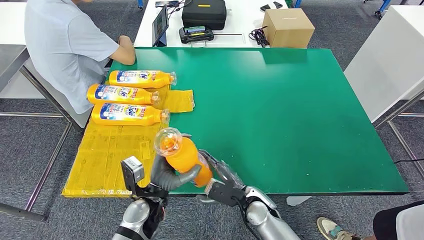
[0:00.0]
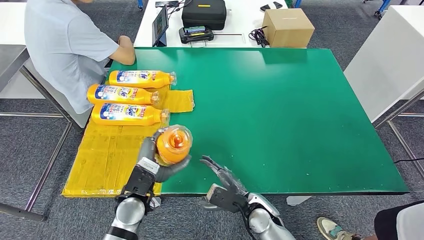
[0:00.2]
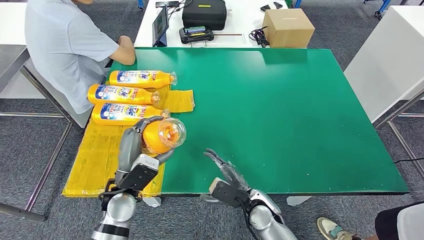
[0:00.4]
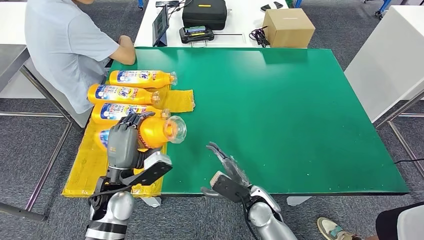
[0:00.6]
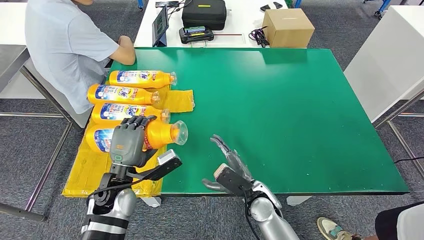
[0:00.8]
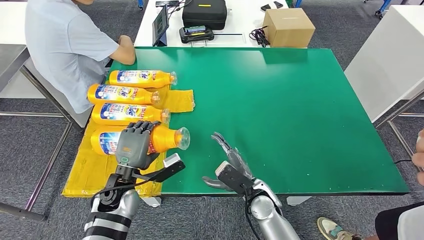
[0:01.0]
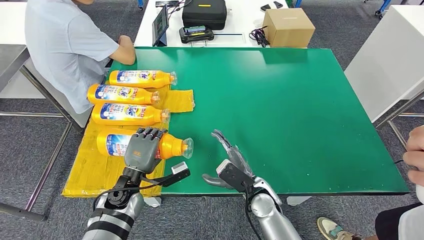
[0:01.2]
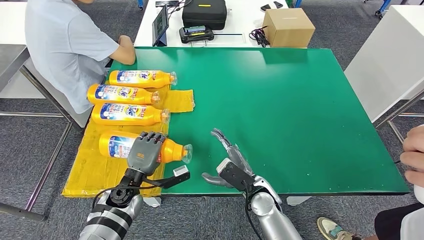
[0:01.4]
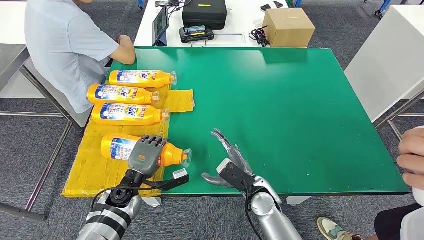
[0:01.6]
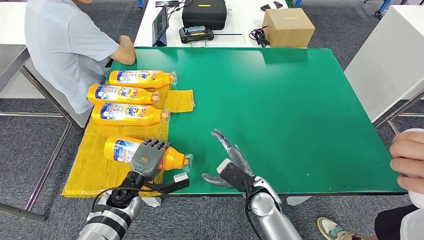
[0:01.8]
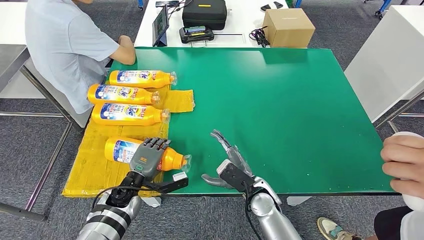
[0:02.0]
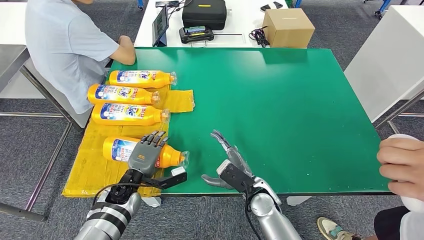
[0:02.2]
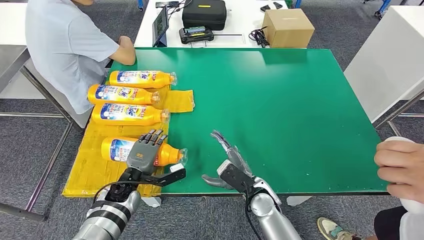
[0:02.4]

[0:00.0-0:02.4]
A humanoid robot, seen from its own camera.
Step, 0:00.0 to 0:02.2: Flip the fast-moving consumer goods bottle to the front side.
0:00.0 to 0:01.2: The left hand shifts some 5 cm to the left.
0:01.2 to 0:02.4: The hands make only small movements.

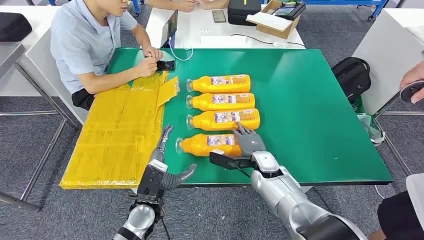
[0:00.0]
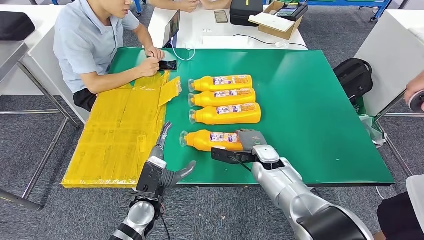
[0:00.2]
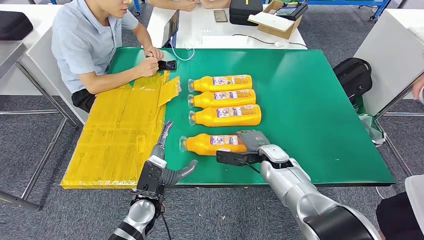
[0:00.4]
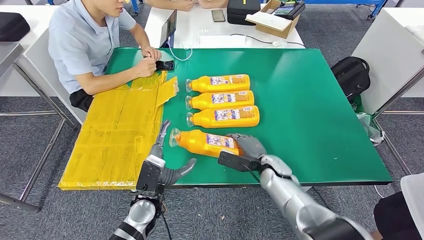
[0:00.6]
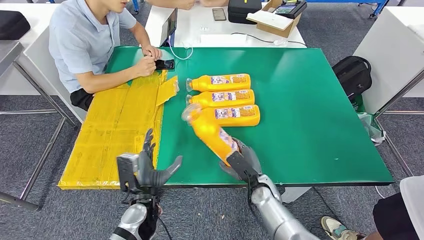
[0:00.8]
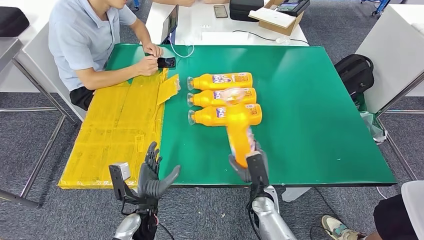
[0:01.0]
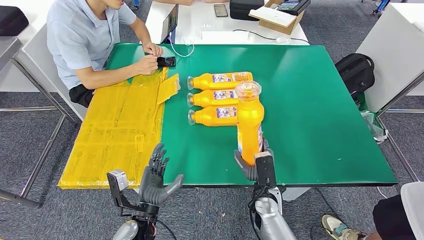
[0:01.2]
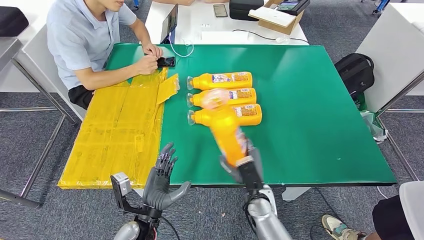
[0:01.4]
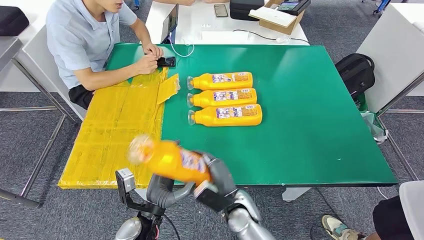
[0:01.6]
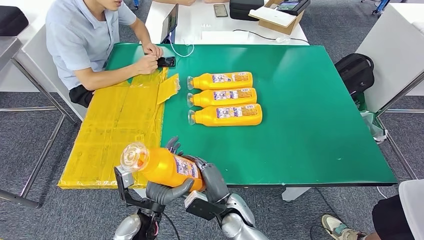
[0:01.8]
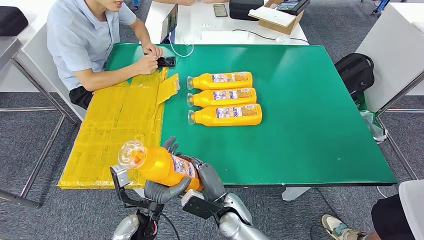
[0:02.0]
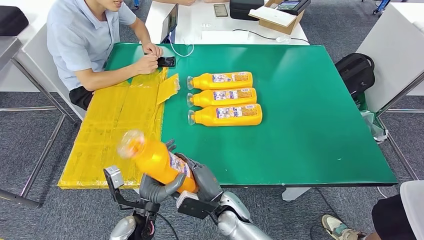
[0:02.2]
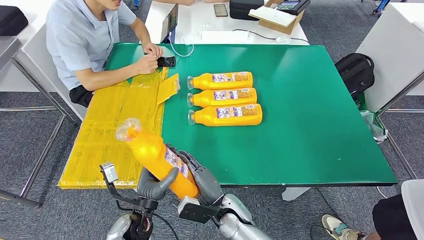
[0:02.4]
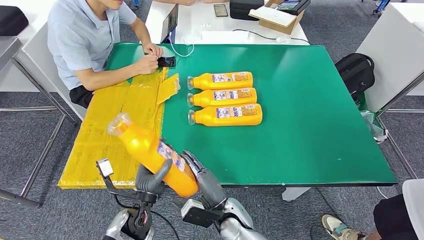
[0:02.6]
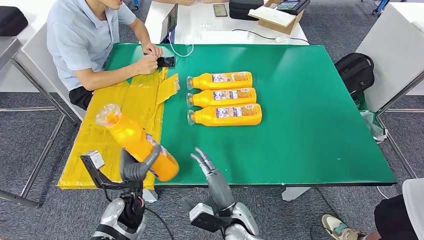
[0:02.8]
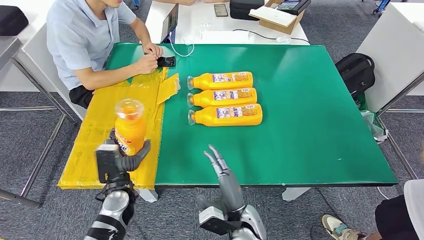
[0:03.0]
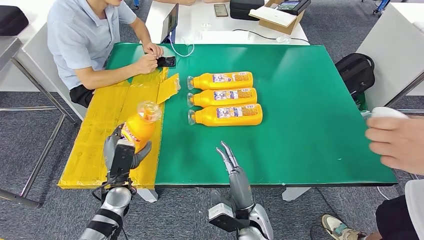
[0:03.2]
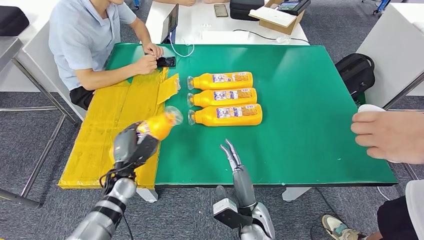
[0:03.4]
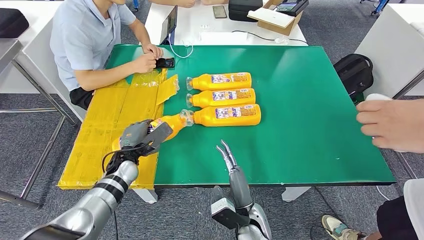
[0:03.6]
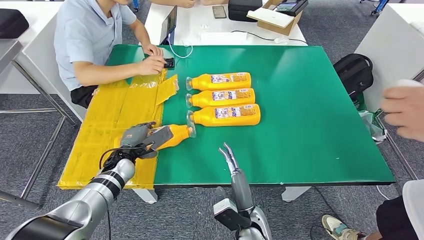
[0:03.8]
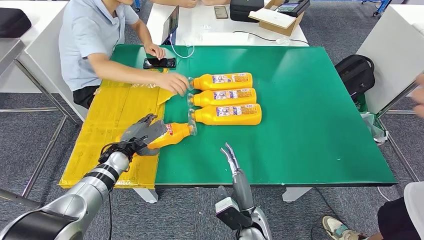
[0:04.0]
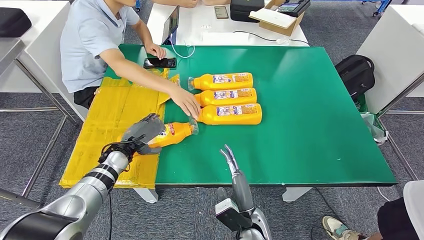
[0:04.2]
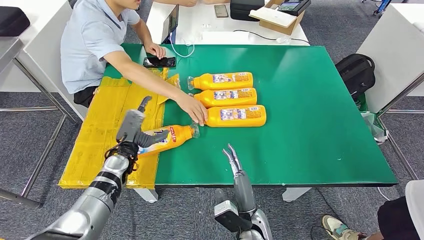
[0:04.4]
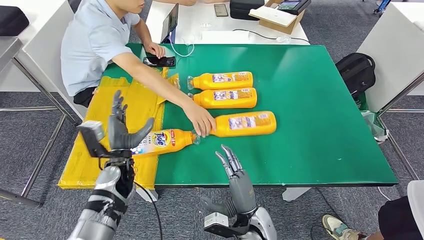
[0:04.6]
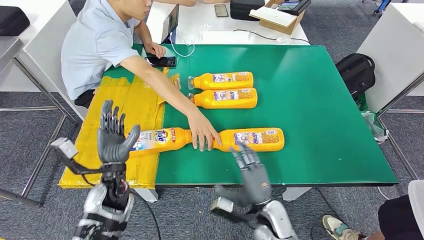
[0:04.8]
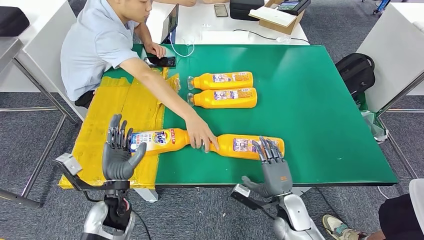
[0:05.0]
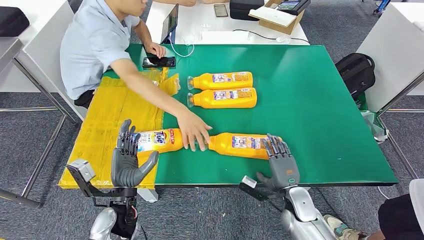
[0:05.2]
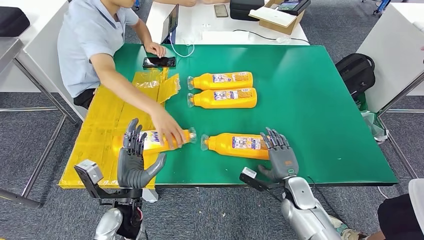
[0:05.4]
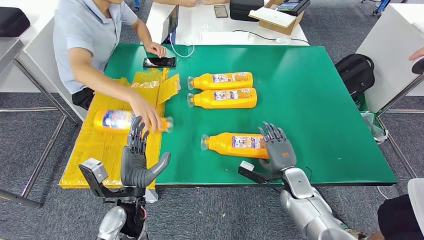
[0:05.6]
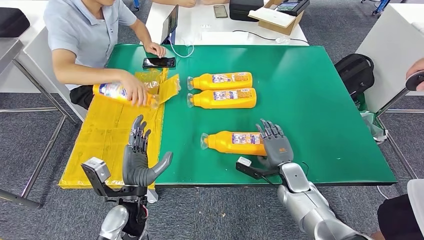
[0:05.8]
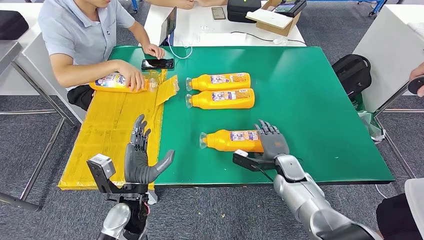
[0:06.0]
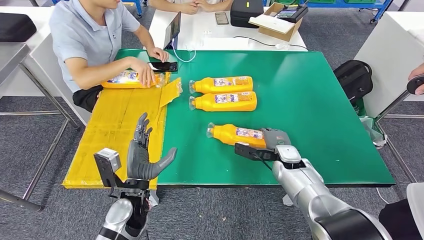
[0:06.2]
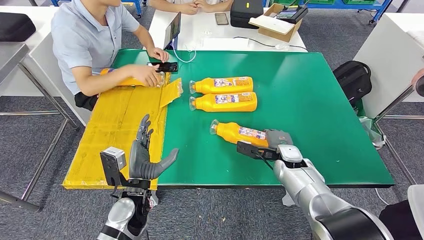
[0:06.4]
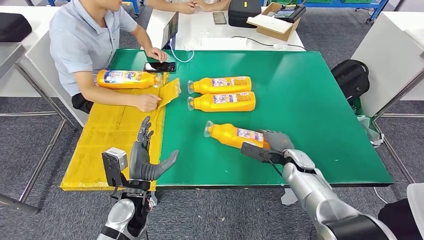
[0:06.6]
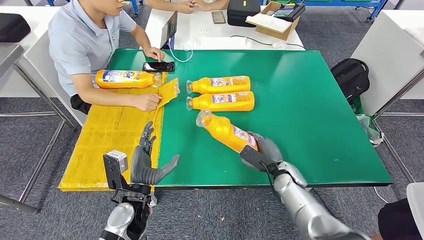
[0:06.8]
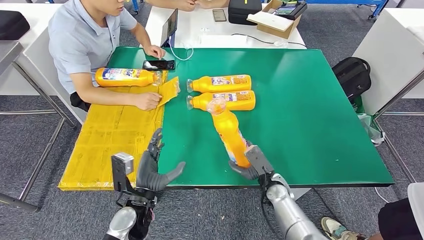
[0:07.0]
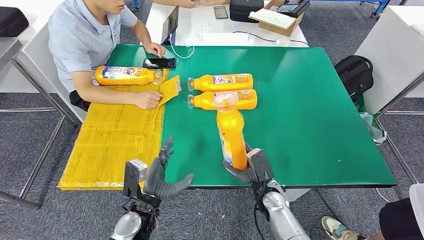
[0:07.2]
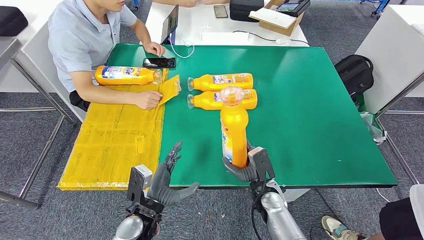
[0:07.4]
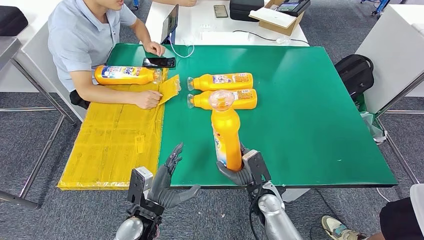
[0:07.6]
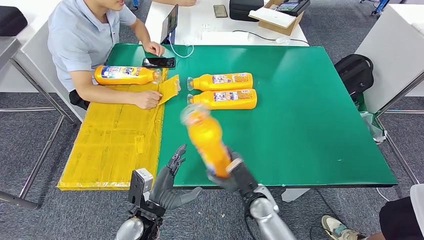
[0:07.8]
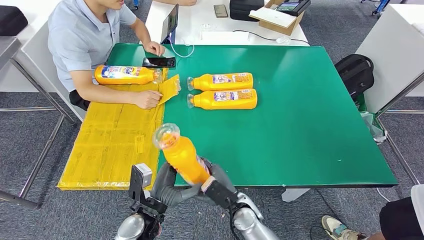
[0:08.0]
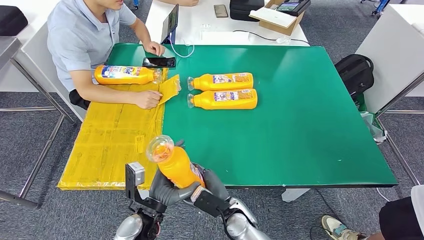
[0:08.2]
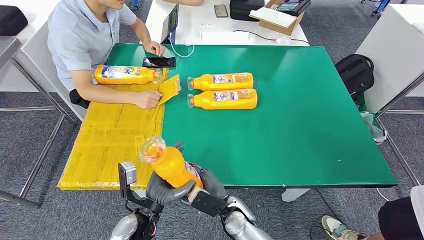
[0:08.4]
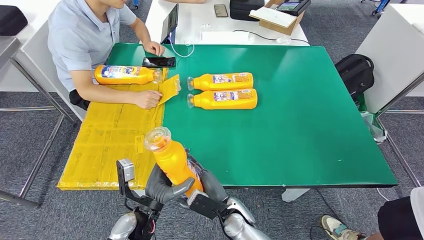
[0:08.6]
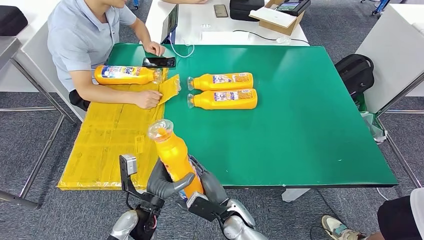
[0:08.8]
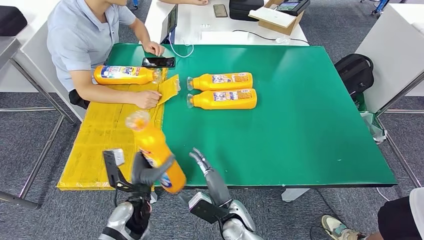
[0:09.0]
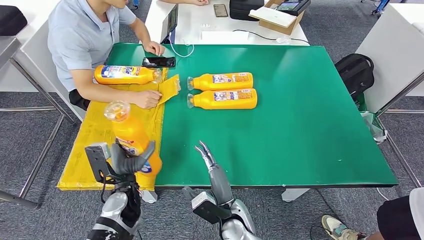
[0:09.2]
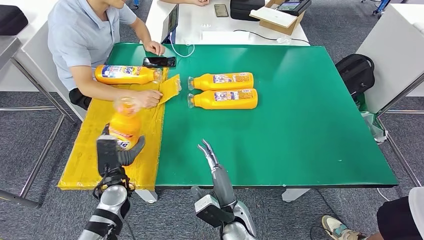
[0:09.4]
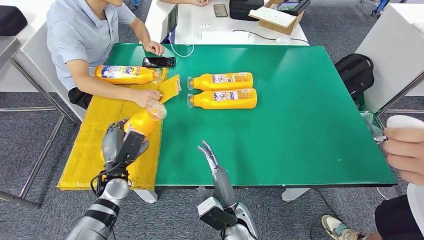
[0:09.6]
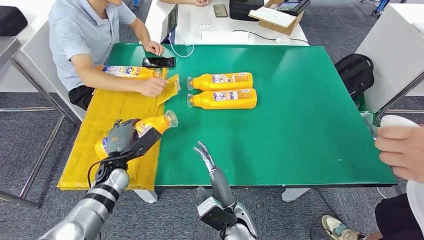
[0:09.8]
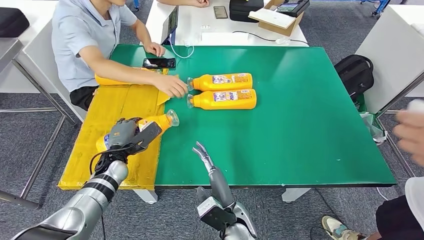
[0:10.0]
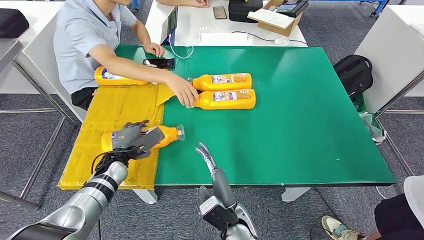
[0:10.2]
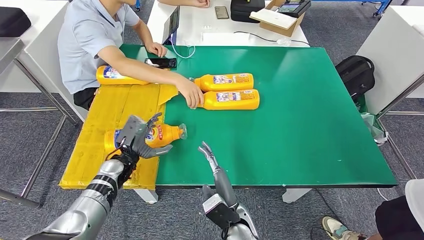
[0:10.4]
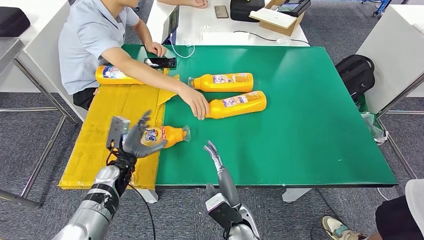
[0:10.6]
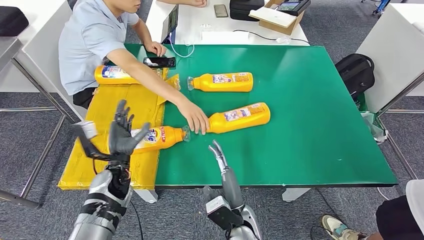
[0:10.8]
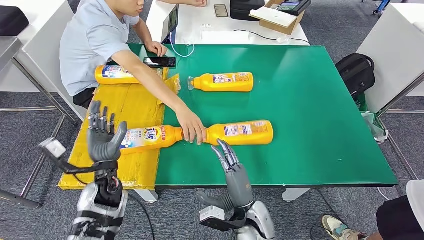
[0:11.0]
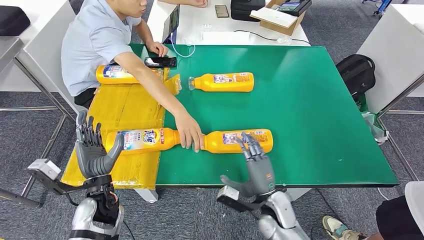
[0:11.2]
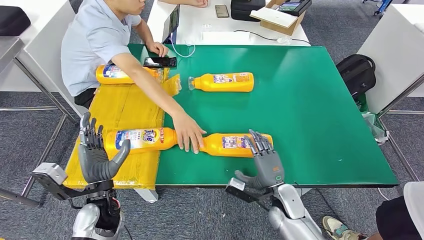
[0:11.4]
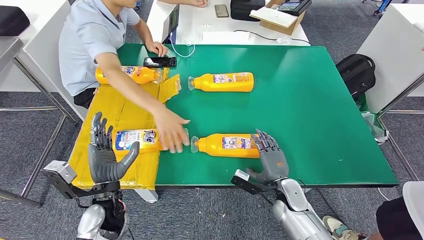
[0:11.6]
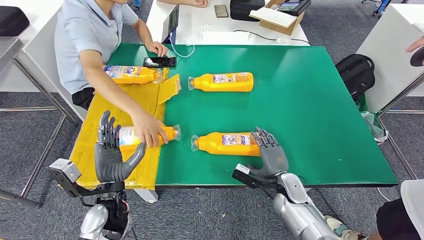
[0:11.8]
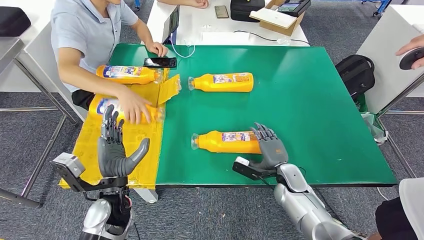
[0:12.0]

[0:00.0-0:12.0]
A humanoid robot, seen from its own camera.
Step, 0:00.0 to 0:02.2: Take the fast-moving consumer goods bottle from the table.
Step, 0:02.4 to 0:06.4: Flip the fast-moving consumer goods bottle to the front side.
Step, 0:06.6 to 0:08.8: Pick up the fast-moving consumer goods bottle from the table.
Step, 0:09.2 to 0:11.8: Flip the fast-moving consumer goods bottle to the front side.
0:01.6 to 0:03.0: The left hand shifts roughly 10 cm forward and to the left.
0:07.6 to 0:09.0: The right hand is displaced to the left by about 10 cm.

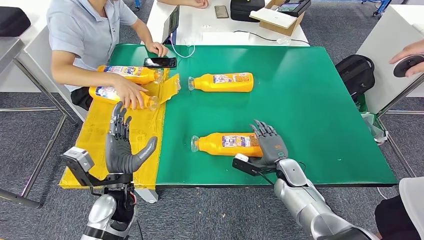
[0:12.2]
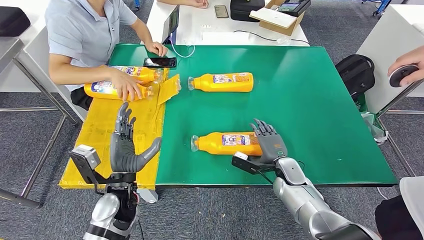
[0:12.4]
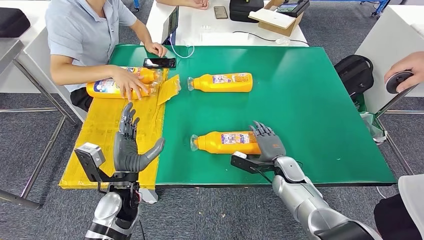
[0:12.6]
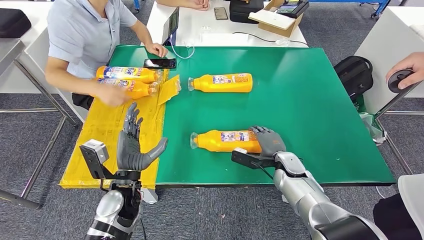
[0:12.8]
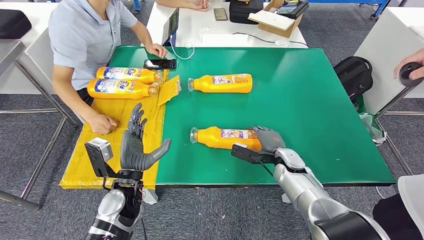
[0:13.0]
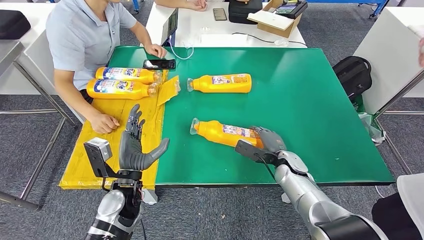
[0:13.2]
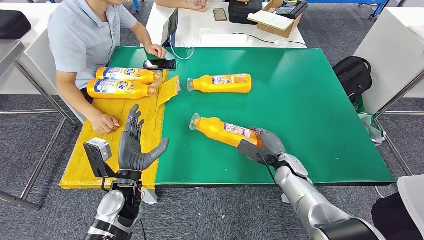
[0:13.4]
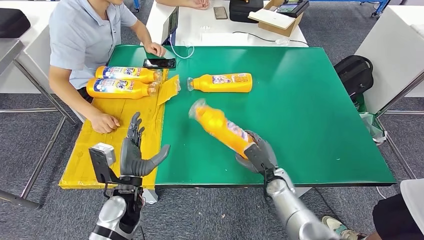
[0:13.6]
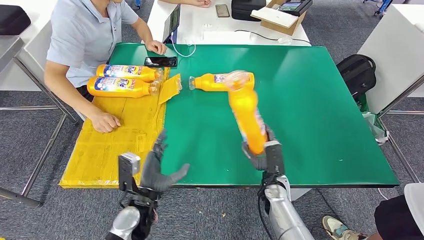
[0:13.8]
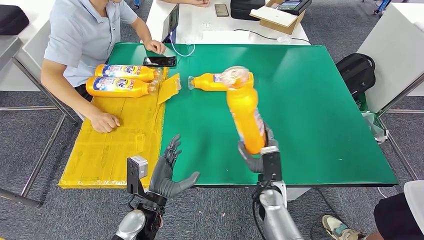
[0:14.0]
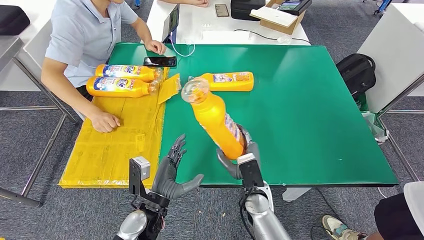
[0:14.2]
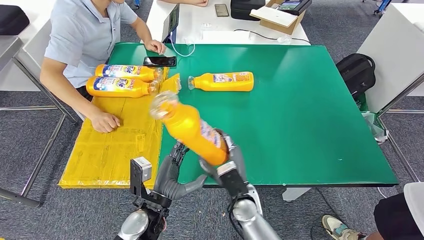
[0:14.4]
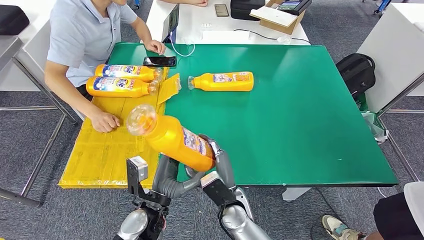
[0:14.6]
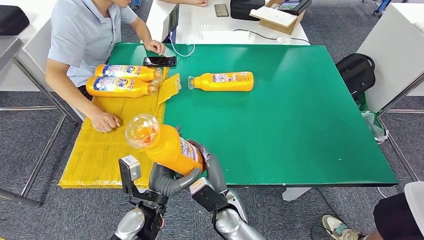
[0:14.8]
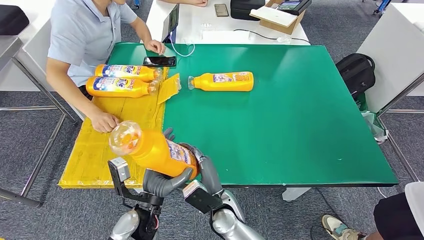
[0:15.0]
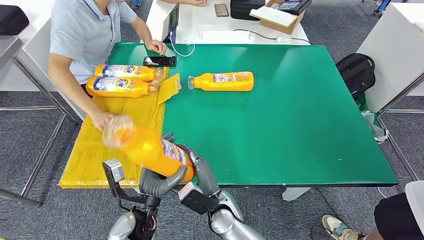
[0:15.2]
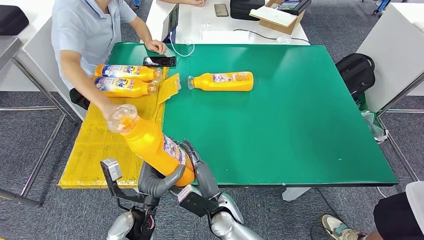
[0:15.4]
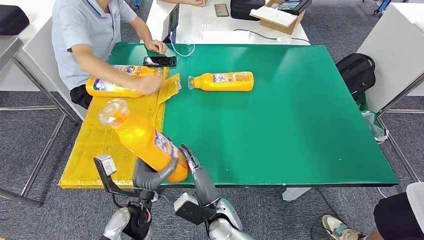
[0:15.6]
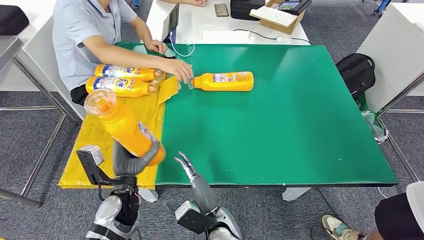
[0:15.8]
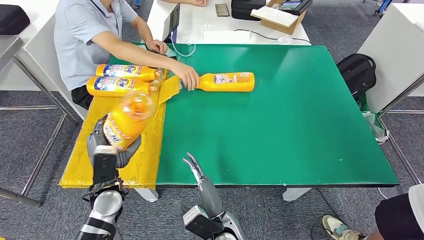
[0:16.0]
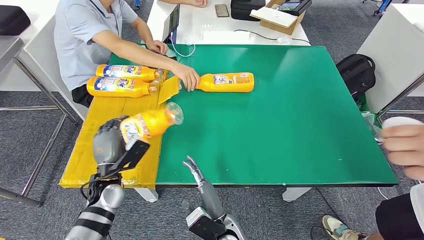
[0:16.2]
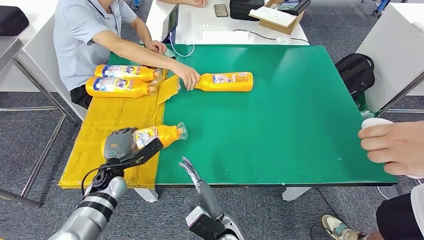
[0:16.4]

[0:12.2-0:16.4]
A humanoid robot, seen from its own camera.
Step, 0:12.2 to 0:14.8: Pick up the fast-moving consumer goods bottle from the table.
